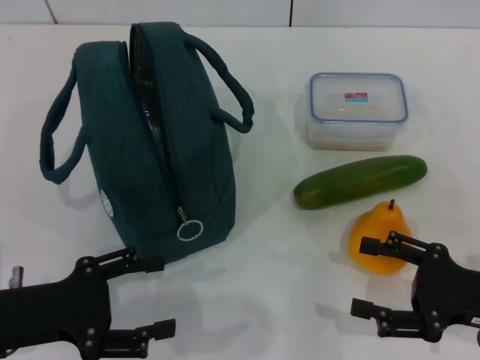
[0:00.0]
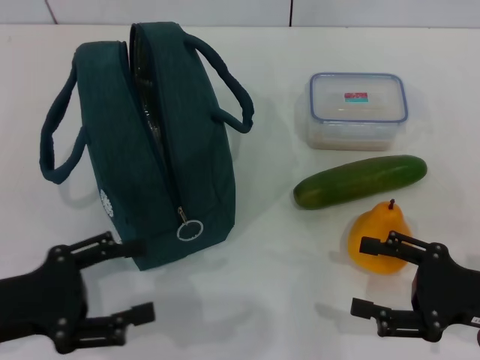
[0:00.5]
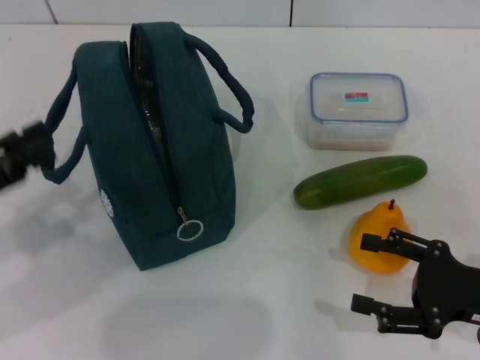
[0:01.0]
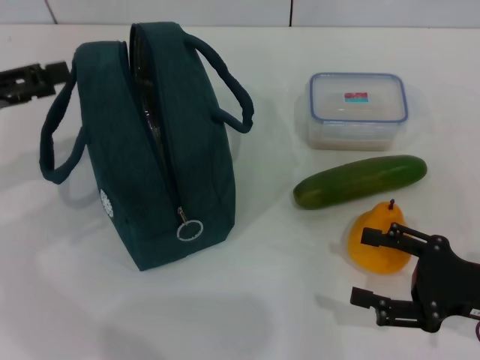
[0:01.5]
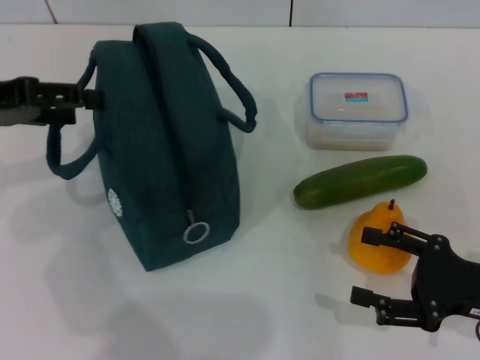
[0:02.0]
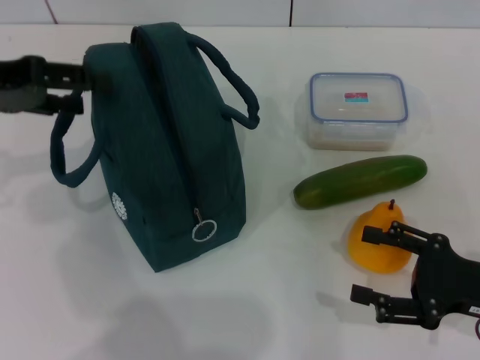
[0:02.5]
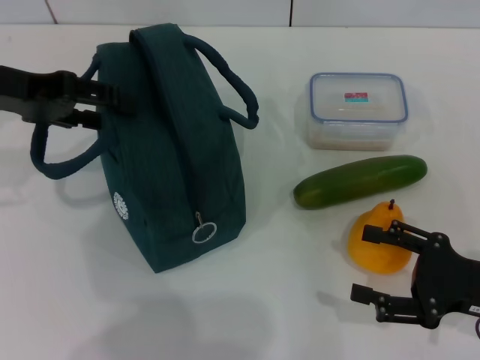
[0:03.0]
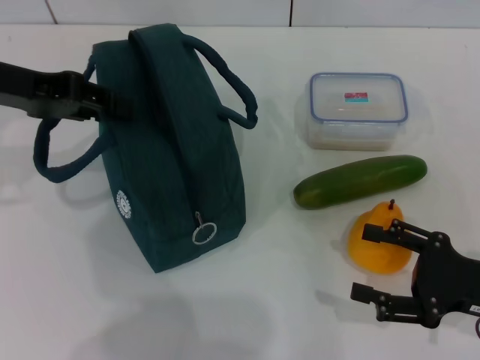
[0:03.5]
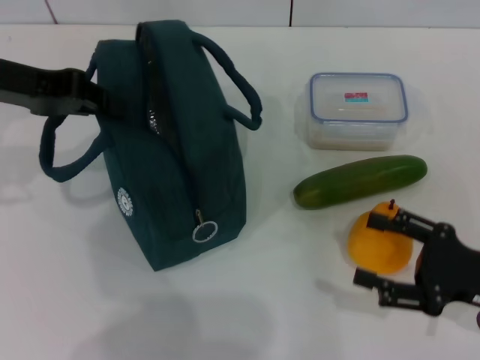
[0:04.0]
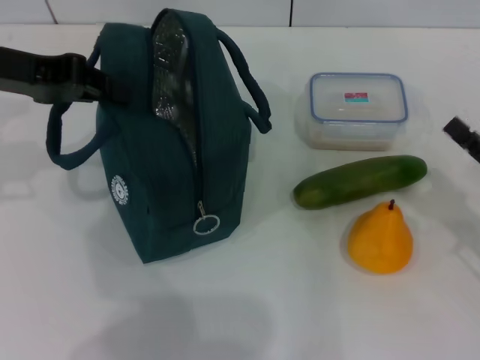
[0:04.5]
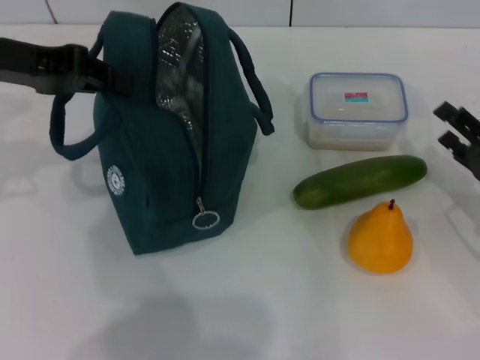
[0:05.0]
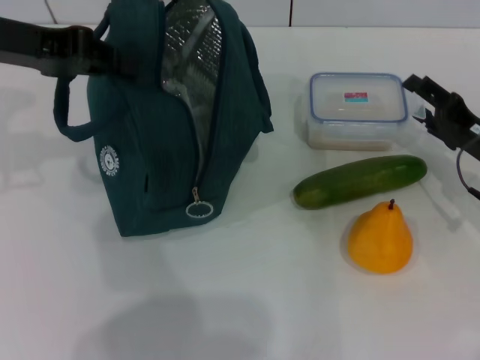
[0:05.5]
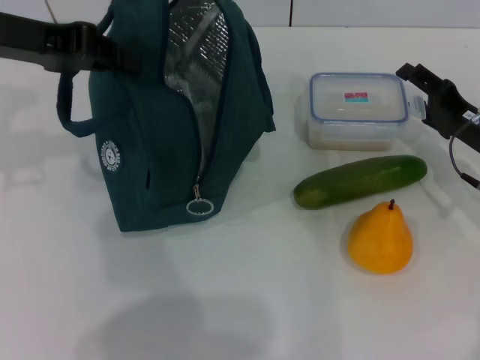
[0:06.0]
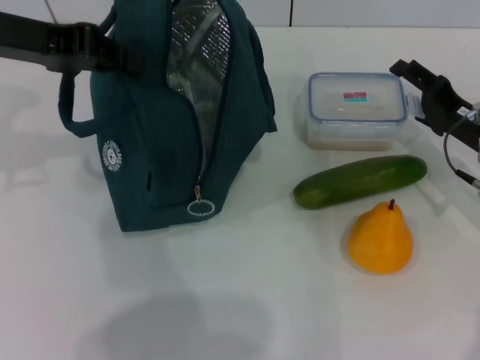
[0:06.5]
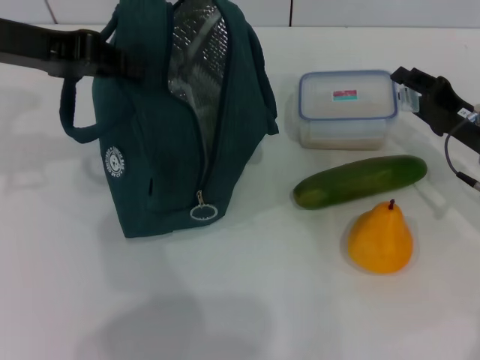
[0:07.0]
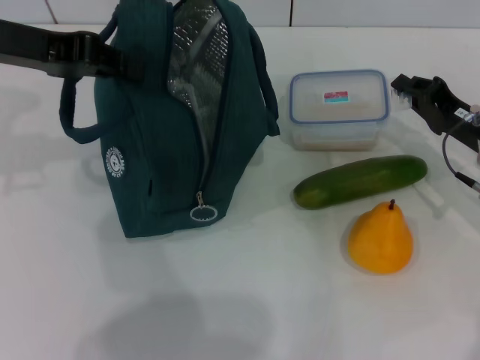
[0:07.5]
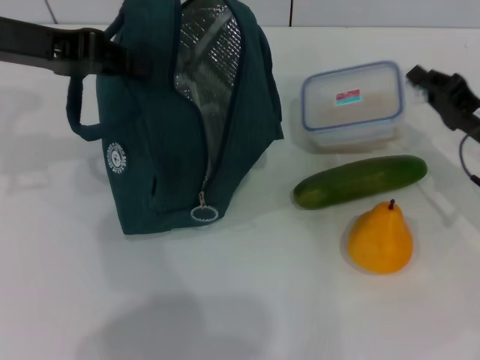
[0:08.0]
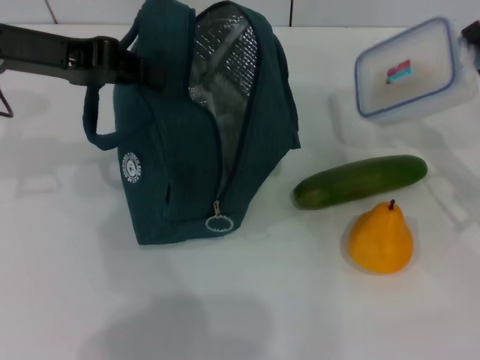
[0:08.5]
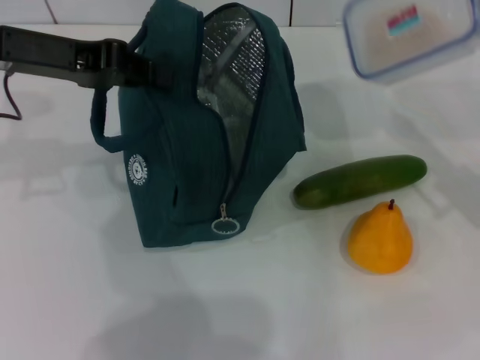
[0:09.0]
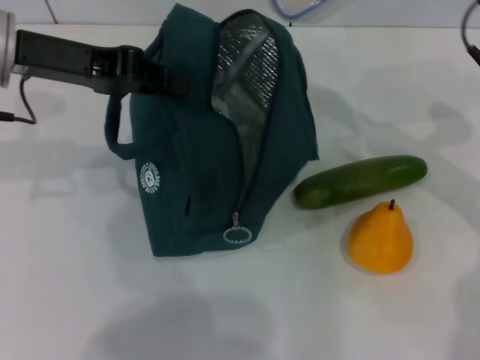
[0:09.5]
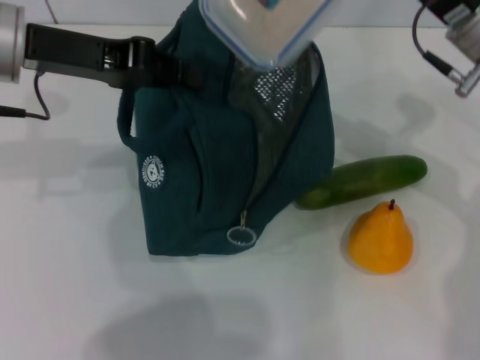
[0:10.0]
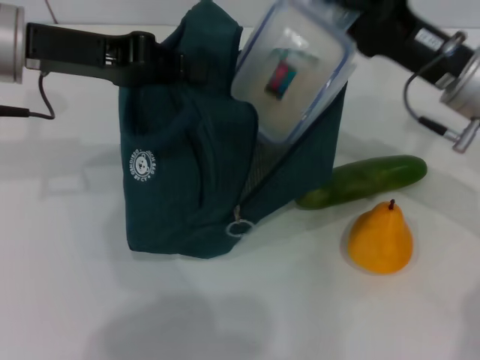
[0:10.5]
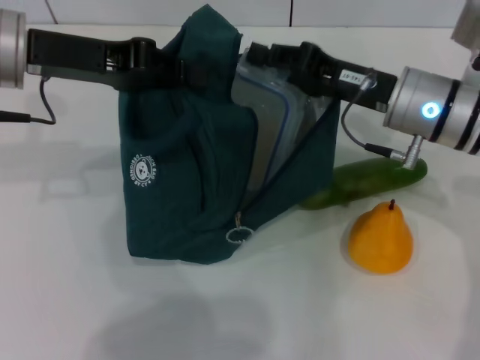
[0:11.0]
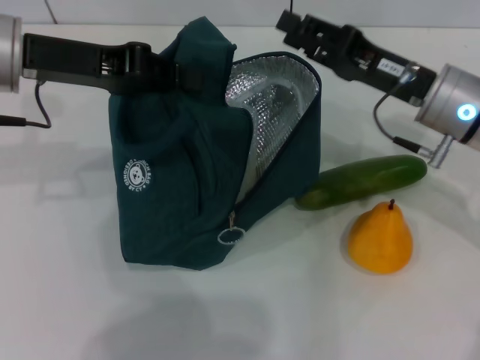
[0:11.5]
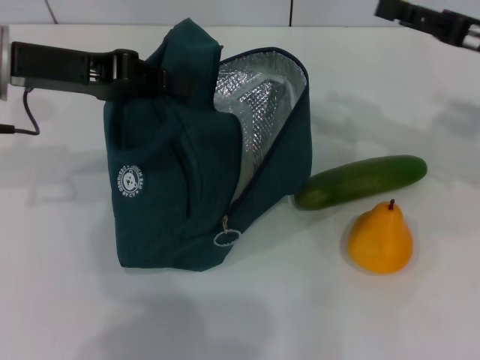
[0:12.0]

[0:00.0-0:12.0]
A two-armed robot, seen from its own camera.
Step, 0:00.0 to 0:04.0: Hold the lunch bag with your left hand.
Step, 0:04.5 to 0:07.0: Pick up the lunch box with your right hand.
Step, 0:08.0 to 0:11.0: Place the lunch box into the lunch bag with your right hand.
0:00.0 to 0:02.0: The left gripper is displaced upward and forward by roughly 20 cm.
0:02.0 to 0:04.0: The left gripper closes its fingers.
0:04.0 to 0:06.0: The right gripper goes about 15 cm forward.
0:06.0 to 0:08.0: The right gripper closes its fingers.
0:08.0 to 0:10.0: The right gripper is displaced upward and to the left by approximately 15 cm.
0:10.0 to 0:12.0: The right gripper goes approximately 10 cm to the right, and opens.

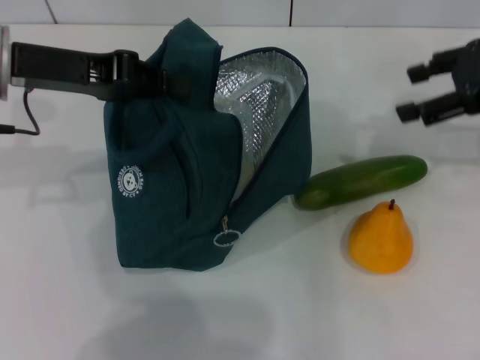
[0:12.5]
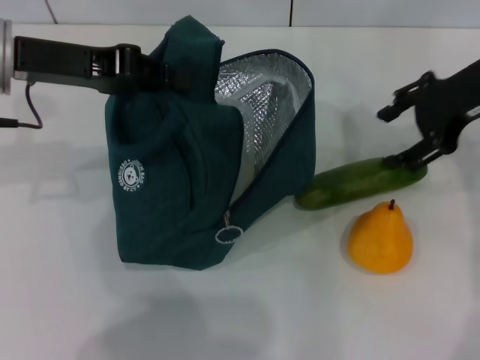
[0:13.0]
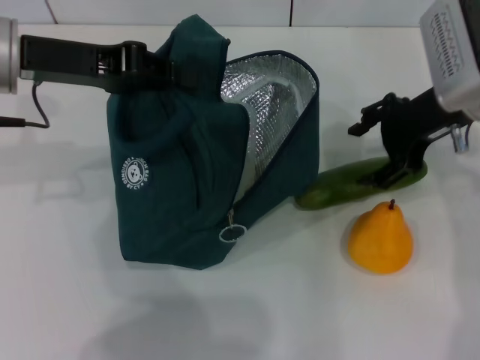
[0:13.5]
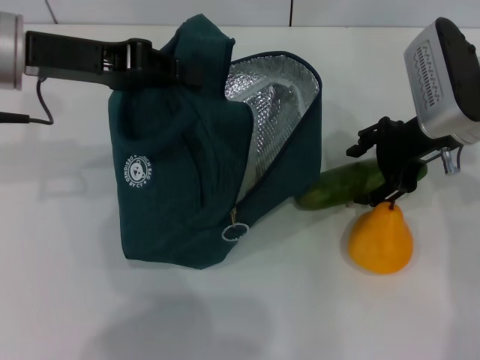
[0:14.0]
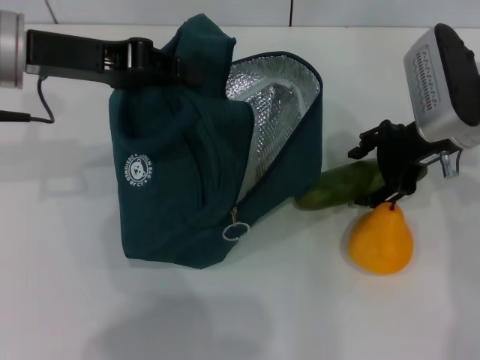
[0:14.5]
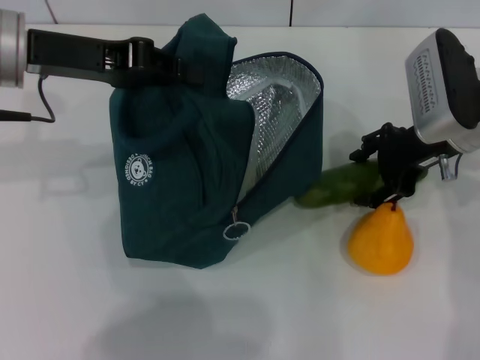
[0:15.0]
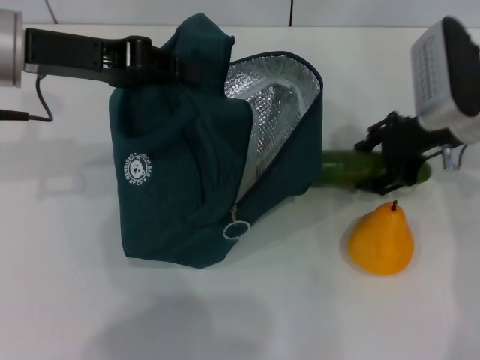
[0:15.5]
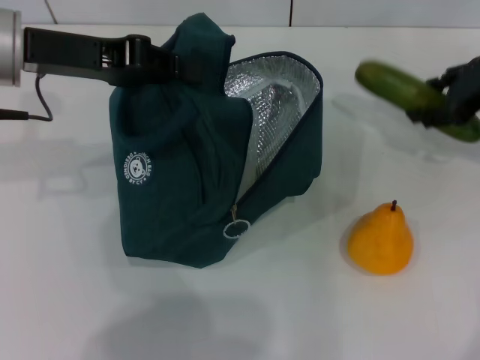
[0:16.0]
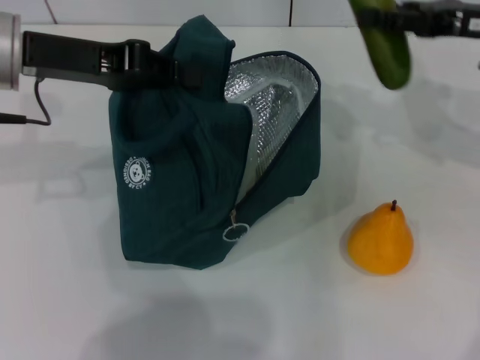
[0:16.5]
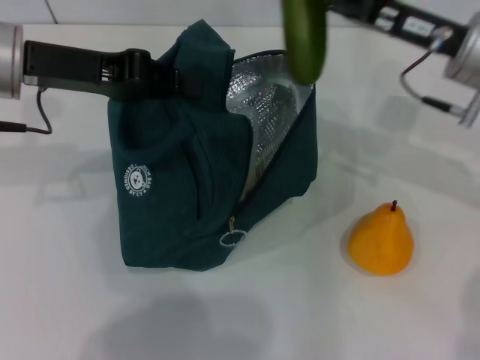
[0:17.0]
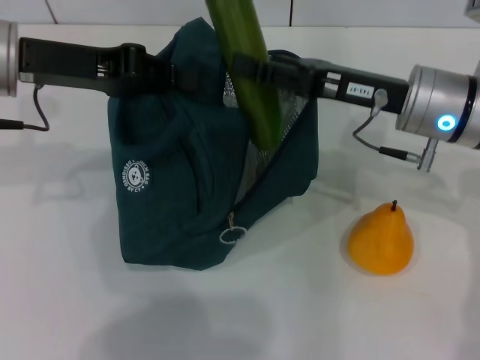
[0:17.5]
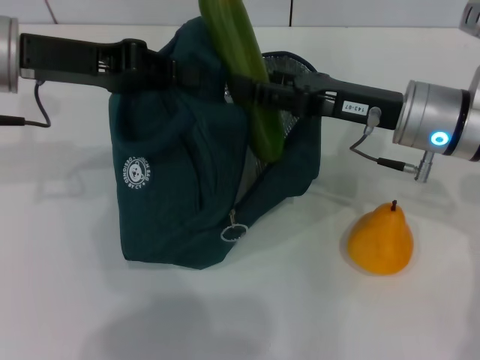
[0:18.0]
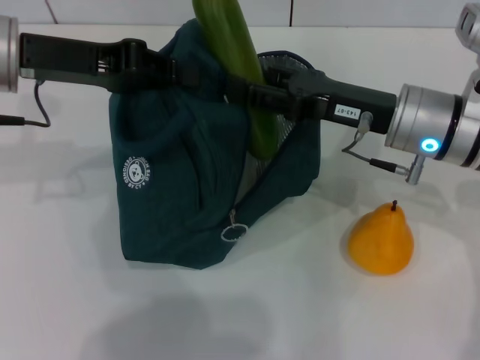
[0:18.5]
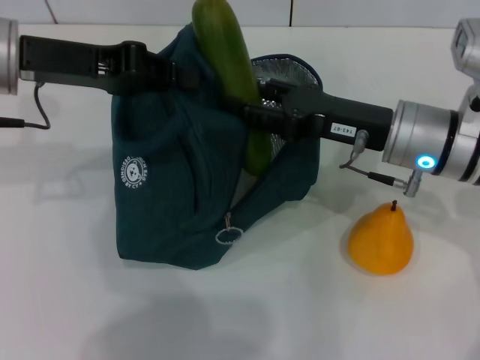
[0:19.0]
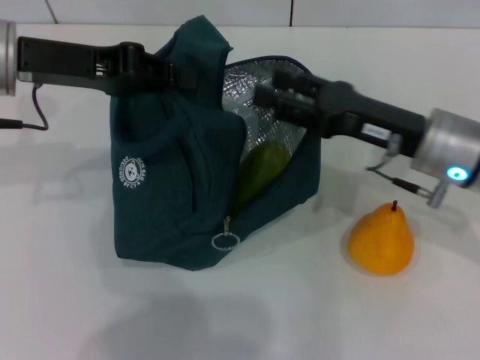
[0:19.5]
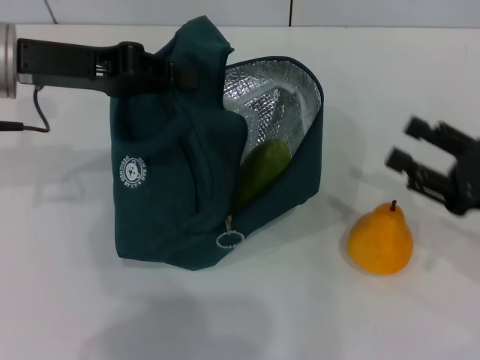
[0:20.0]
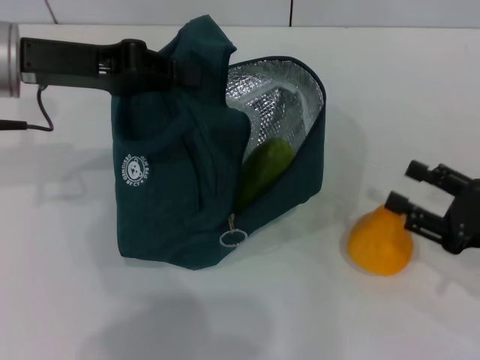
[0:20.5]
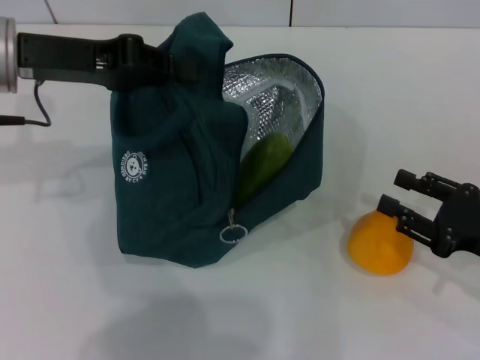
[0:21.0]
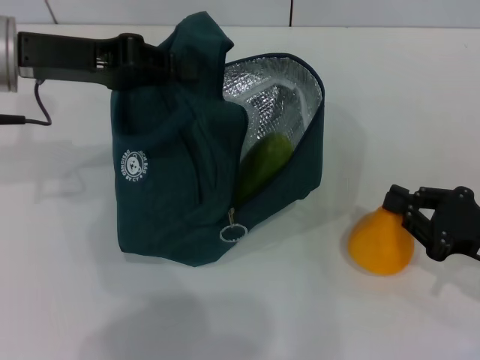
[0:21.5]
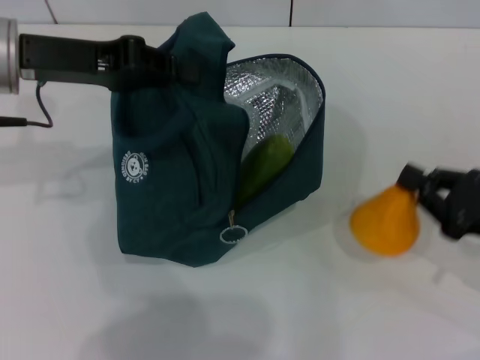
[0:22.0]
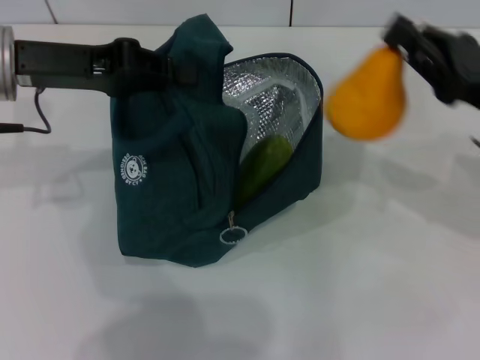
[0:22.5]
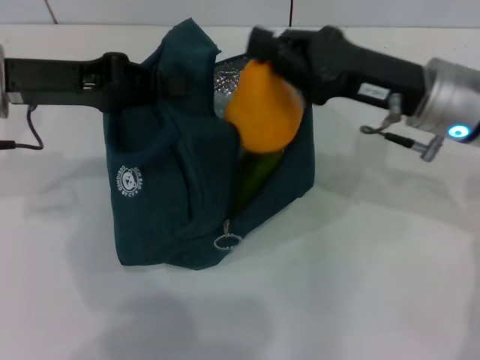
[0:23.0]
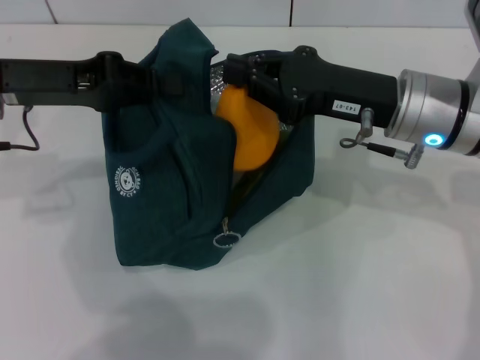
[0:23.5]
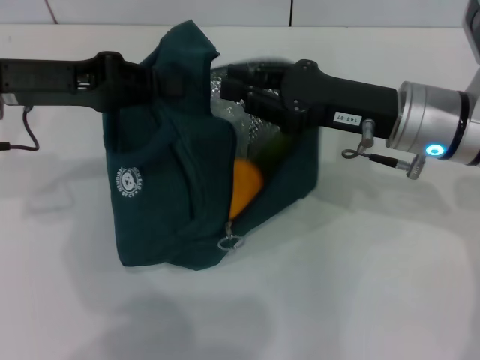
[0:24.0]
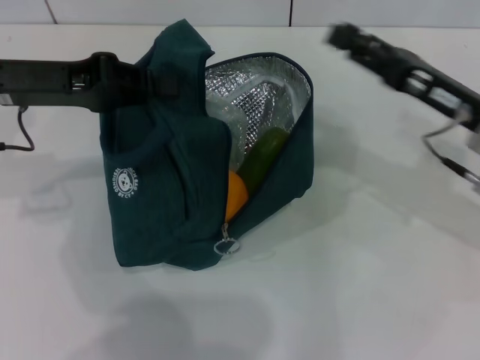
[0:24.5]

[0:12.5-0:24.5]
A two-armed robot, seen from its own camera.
Step, 0:12.5 to 0:15.0: Pick up the cucumber with your right hand.
Step, 0:15.5 to 0:19.5: Put the cucumber into the lunch bag with your right hand.
Step, 0:20.0 to 0:21.5: Grab the pear with your right hand.
0:12.5 to 0:14.5: The right gripper heads to the left and downward, covering roughly 10 cm.
0:14.5 to 0:16.5: The right gripper is displaced to the right and upward by some 10 cm.
0:16.5 to 0:18.5: The right gripper is displaced to the left and downward by approximately 15 cm.
0:18.5 to 0:20.5: The right gripper heads to the right, backward and downward, covering roughly 20 cm.
0:20.5 to 0:22.5: The right gripper moves upward and forward, roughly 10 cm, and closes.
0:22.5 to 0:24.5: The right gripper travels to the left and back again, some 10 cm each way, and opens.

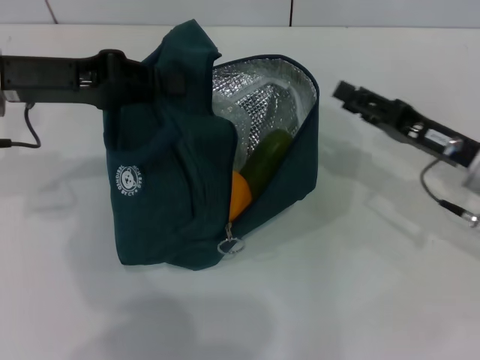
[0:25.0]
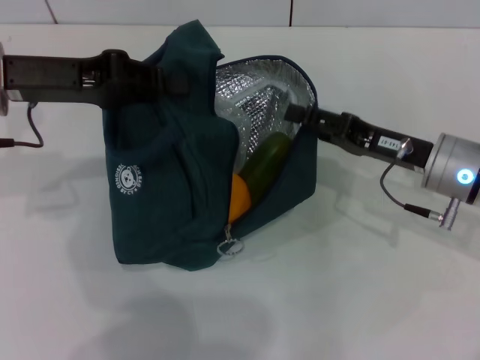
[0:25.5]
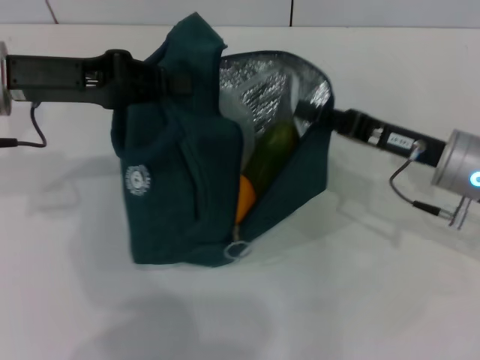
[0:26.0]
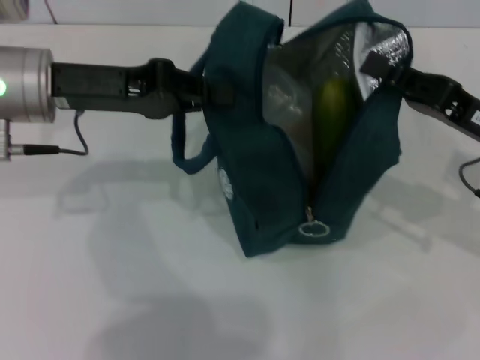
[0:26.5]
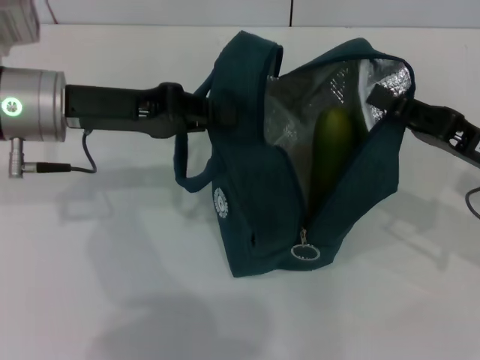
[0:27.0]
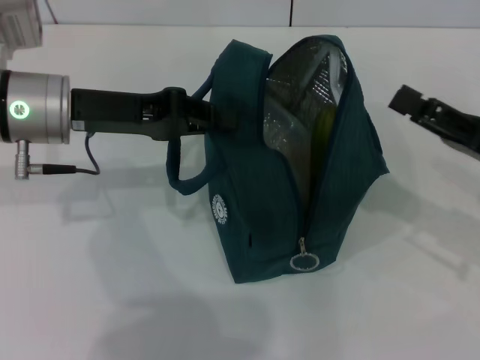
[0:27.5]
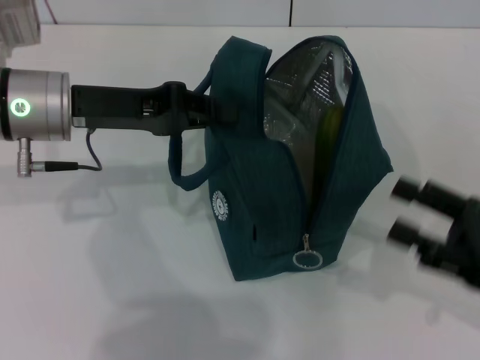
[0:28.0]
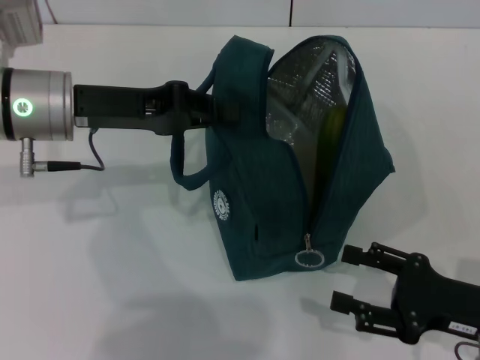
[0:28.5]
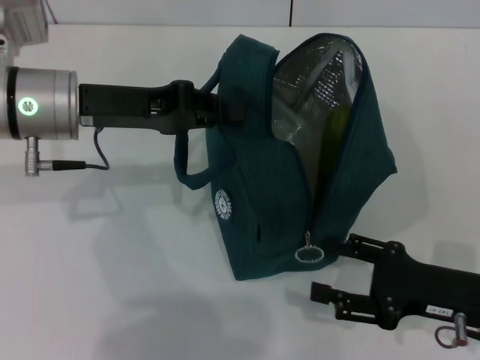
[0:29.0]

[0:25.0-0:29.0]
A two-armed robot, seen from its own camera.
Step, 0:25.0 to 0:27.0: Hold the lunch bag with your right hand.
0:25.0 to 0:27.0: The right gripper closes its fingers.
0:27.0 to 0:29.0: The right gripper heads backward and downward, covering approximately 10 cm, and opens.
